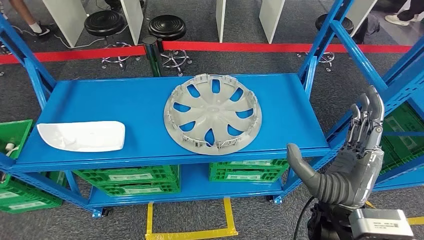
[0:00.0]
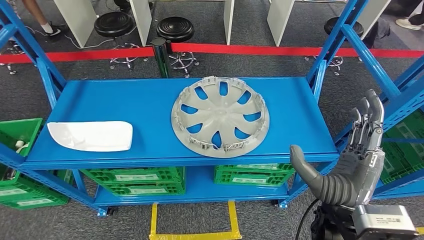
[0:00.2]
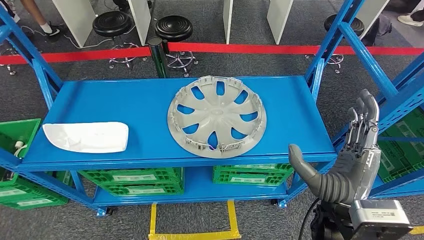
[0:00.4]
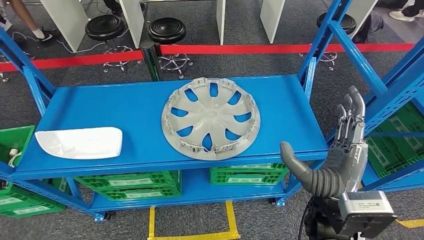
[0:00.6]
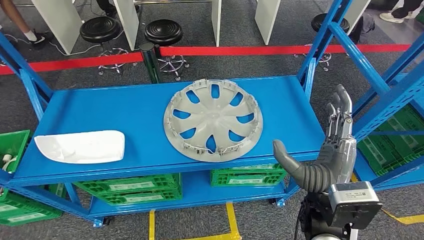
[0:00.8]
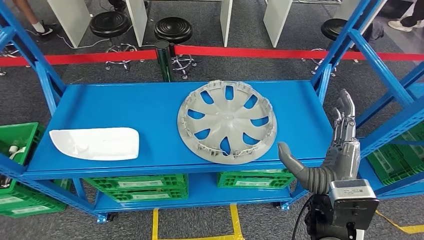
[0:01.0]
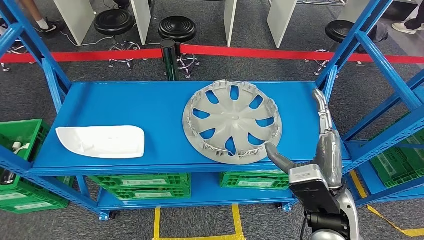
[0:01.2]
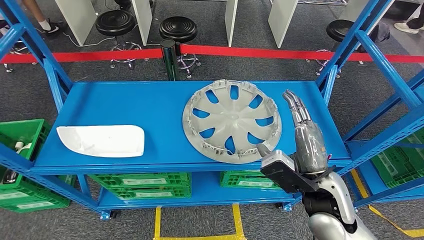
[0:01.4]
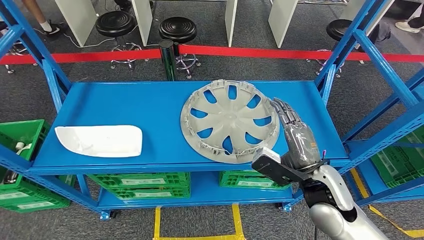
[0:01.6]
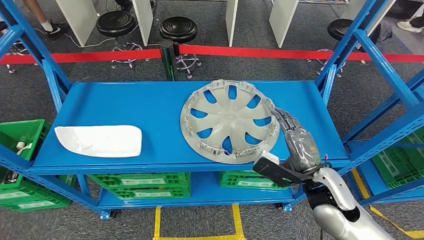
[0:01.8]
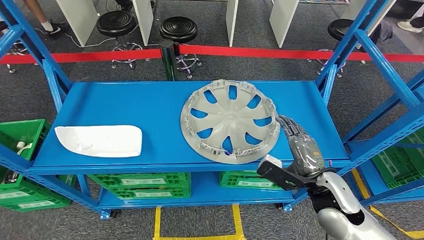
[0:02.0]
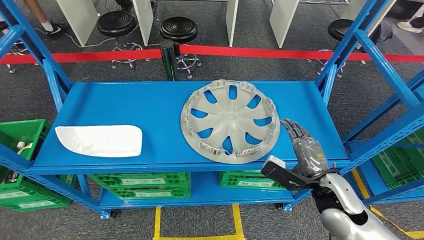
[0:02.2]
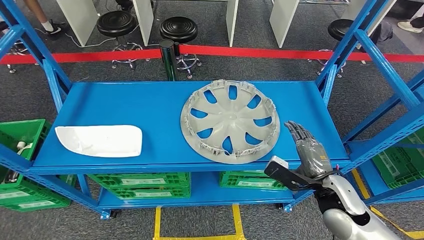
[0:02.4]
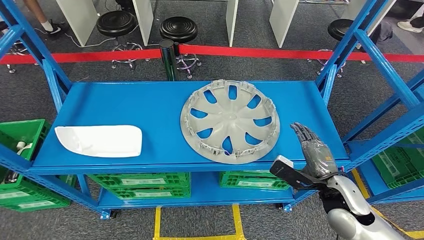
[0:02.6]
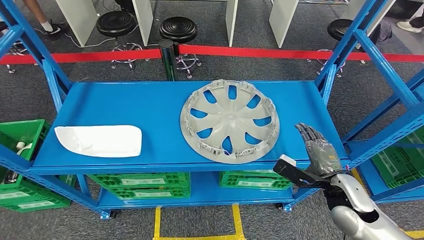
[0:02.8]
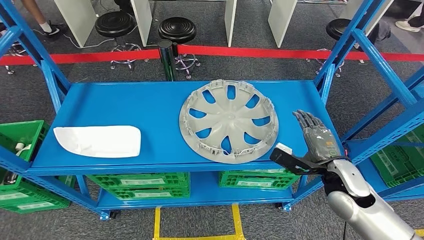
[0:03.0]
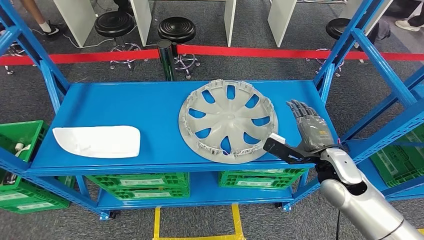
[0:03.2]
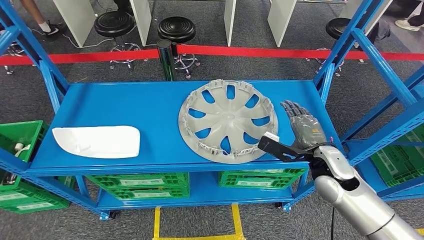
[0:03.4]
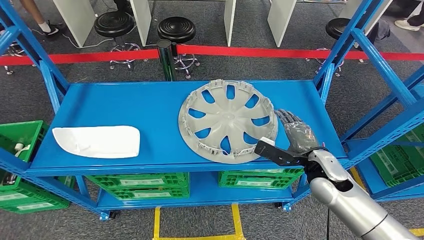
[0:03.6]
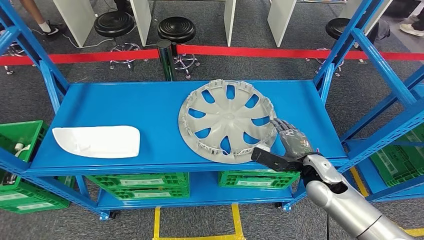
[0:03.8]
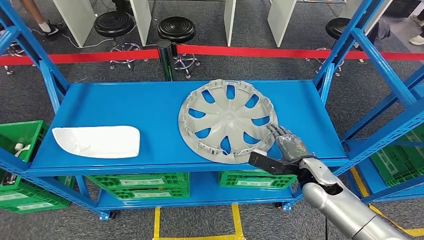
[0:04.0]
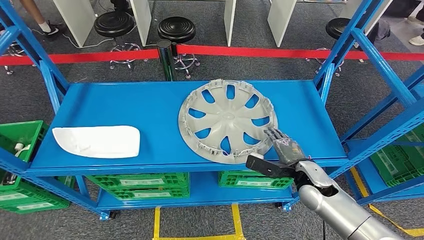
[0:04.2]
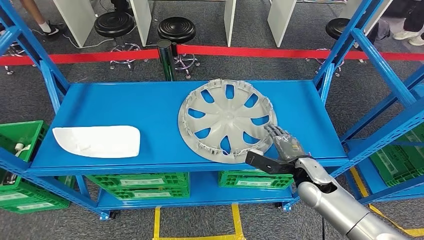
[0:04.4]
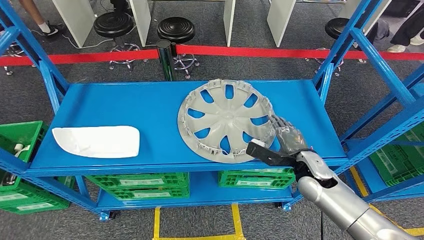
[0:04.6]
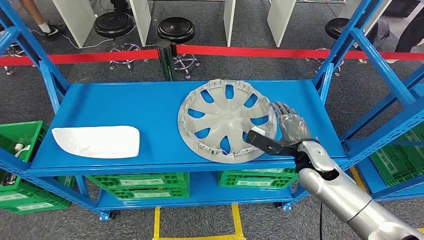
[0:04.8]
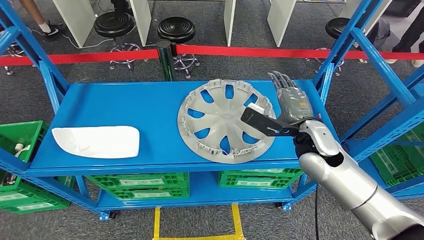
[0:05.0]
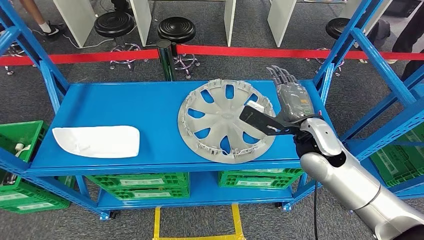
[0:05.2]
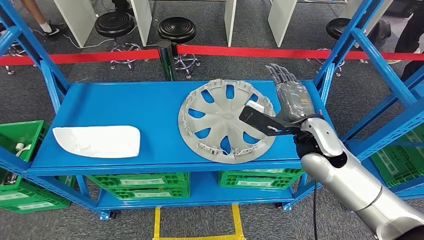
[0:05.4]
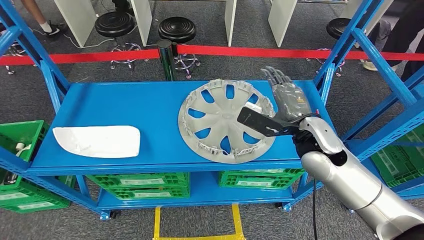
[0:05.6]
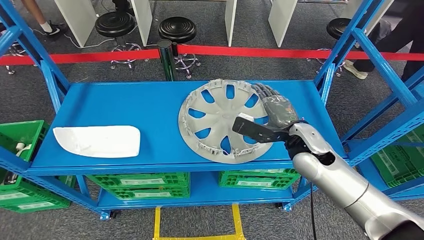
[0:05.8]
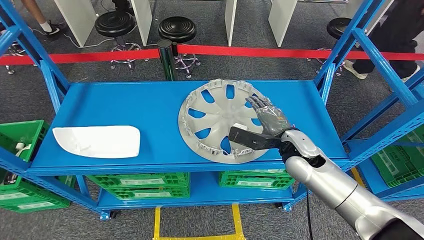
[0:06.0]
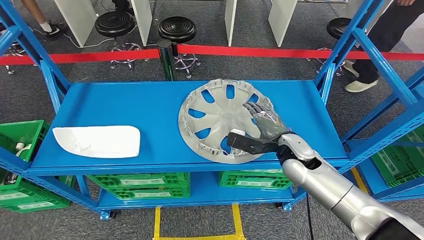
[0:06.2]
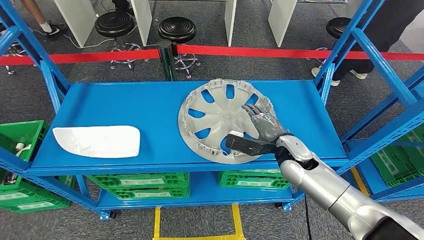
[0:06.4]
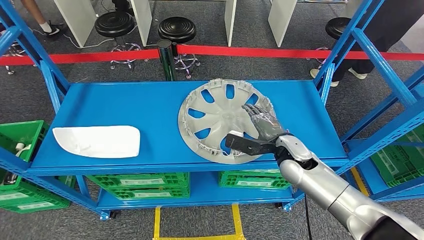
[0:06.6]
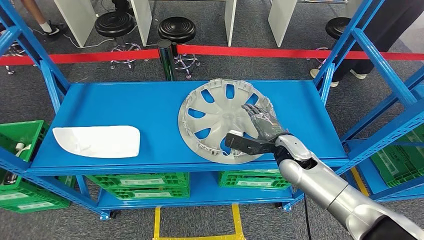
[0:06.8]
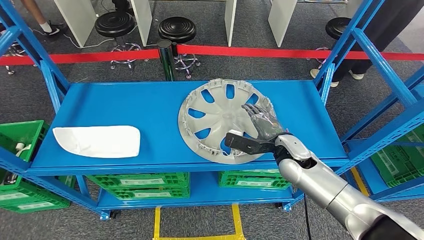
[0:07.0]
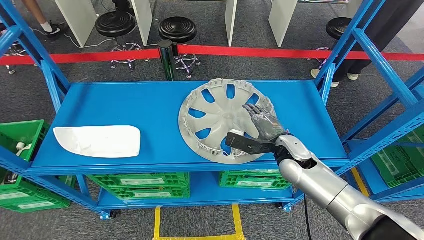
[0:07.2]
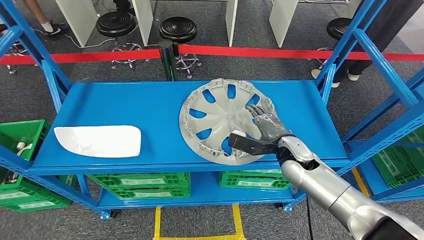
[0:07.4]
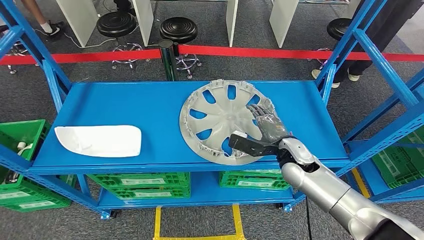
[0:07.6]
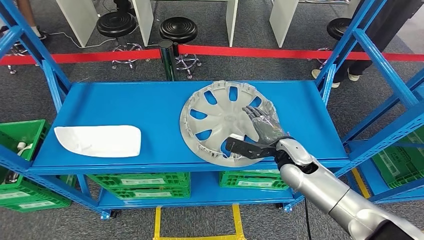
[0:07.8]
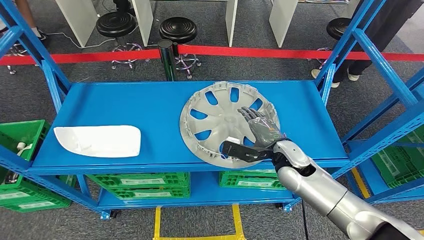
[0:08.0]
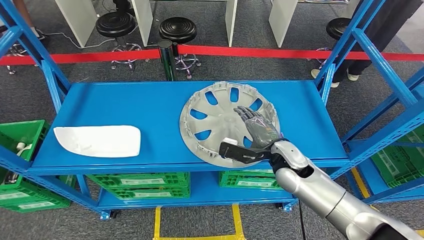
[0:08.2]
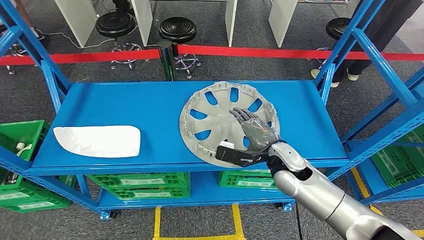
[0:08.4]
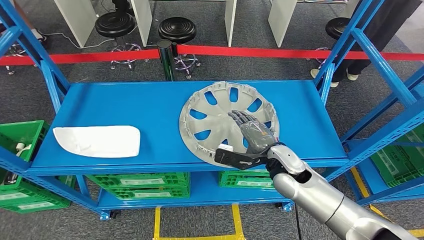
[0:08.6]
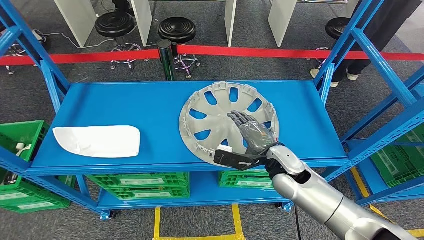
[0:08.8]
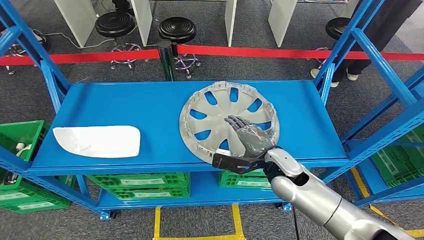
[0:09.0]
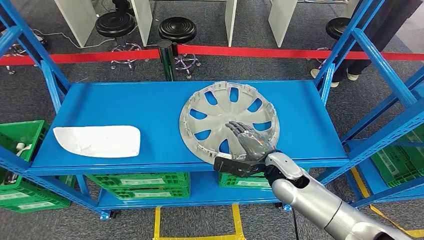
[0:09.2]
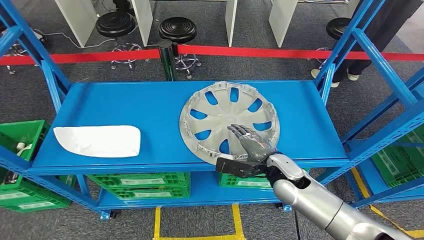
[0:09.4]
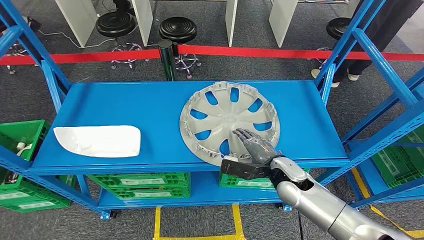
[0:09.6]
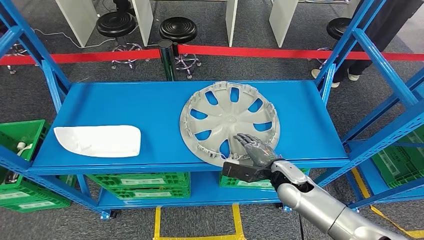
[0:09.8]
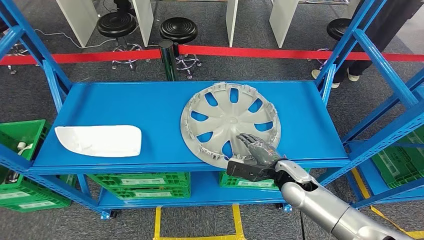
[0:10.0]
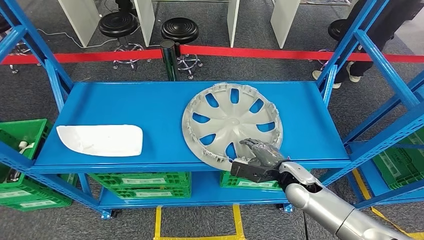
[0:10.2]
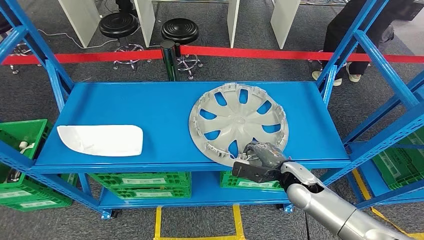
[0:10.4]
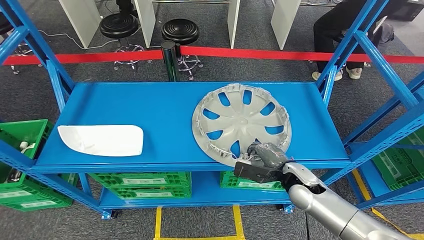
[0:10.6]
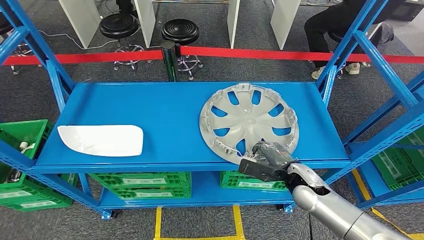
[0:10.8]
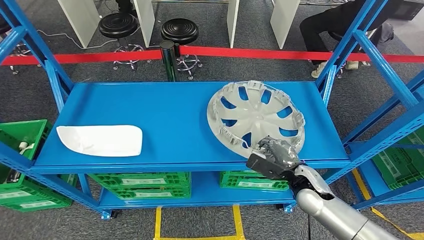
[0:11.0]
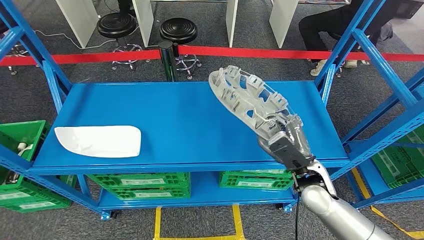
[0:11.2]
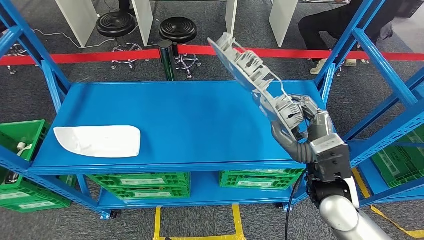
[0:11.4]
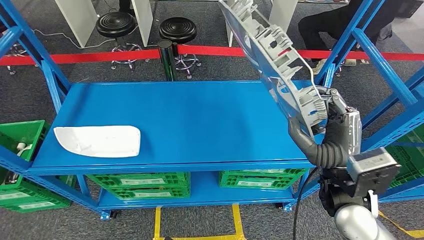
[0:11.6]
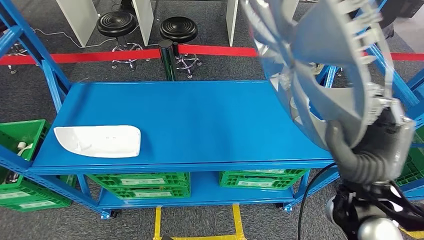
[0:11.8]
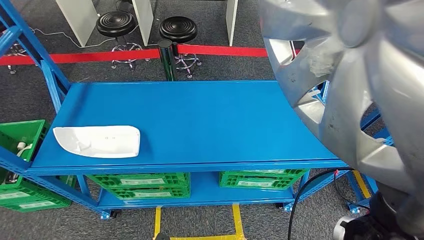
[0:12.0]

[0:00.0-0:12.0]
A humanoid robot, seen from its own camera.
Step, 0:00.0 to 0:11.4: Pick up the small component from the shelf.
0:01.6 to 0:03.0: The right hand travels to the right by roughly 10 cm.
0:03.0 to 0:04.4: The right hand travels downward by some 5 cm.
0:04.4 to 0:06.0: The right hand travels upward by some 10 cm.
0:06.0 to 0:07.6: The hands stay close to where they were, moving slightly.
0:07.6 to 0:09.0: The right hand changes place by approximately 5 cm.

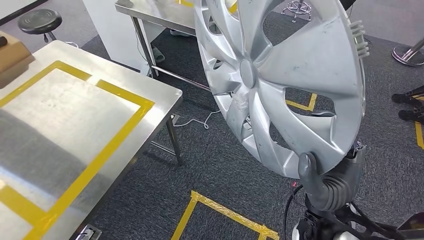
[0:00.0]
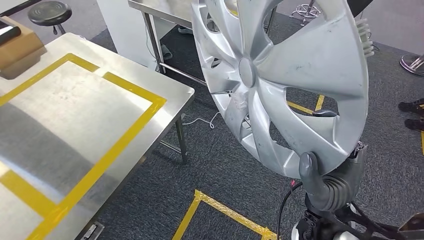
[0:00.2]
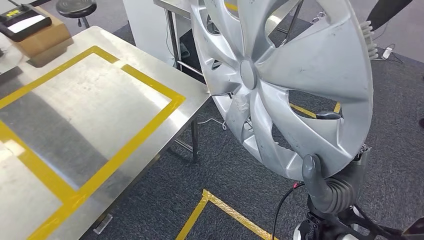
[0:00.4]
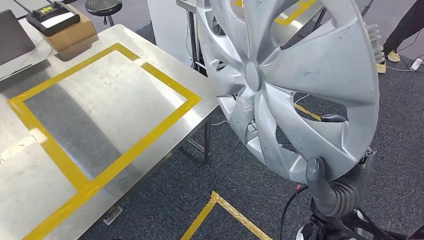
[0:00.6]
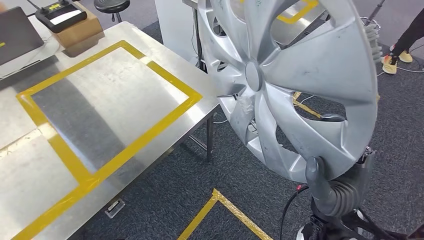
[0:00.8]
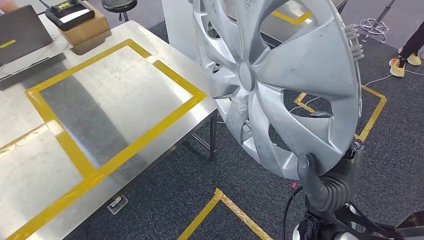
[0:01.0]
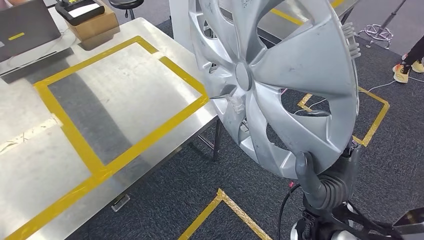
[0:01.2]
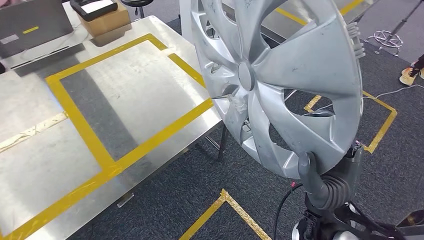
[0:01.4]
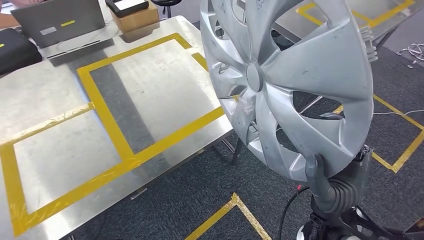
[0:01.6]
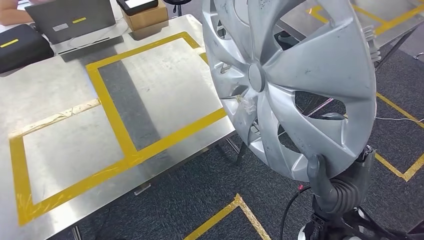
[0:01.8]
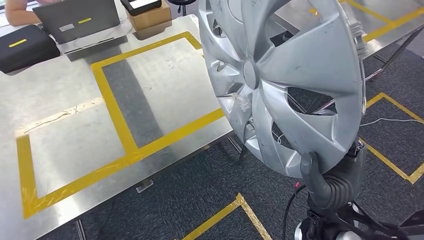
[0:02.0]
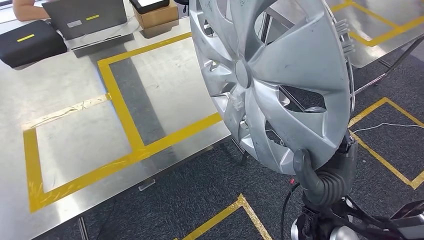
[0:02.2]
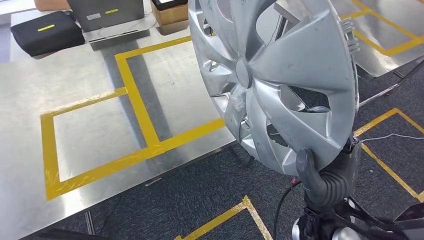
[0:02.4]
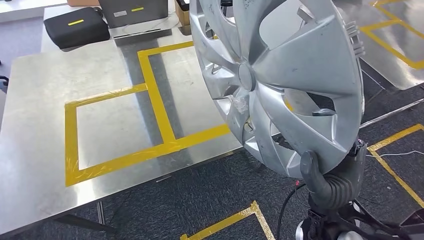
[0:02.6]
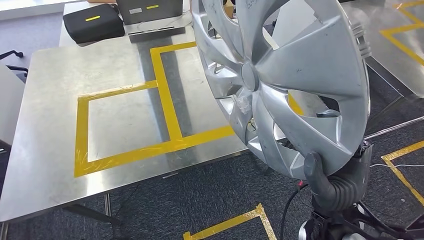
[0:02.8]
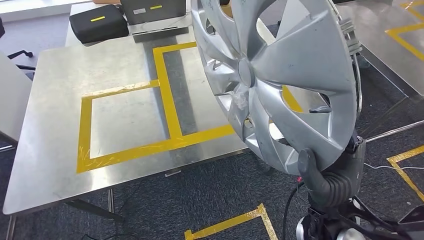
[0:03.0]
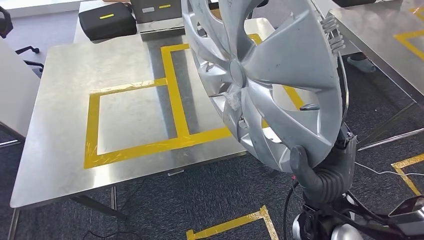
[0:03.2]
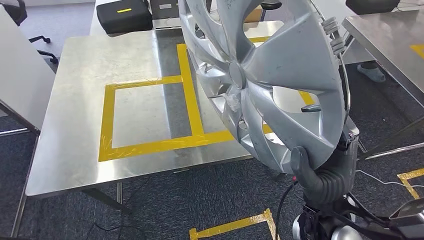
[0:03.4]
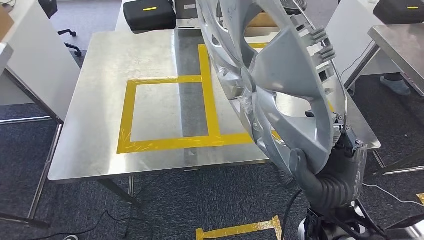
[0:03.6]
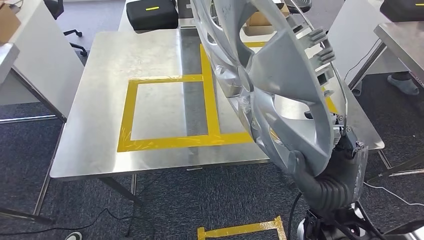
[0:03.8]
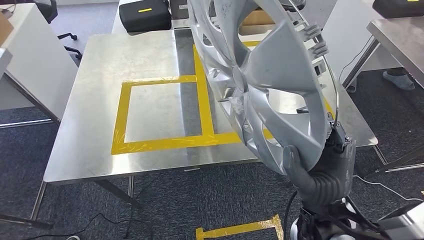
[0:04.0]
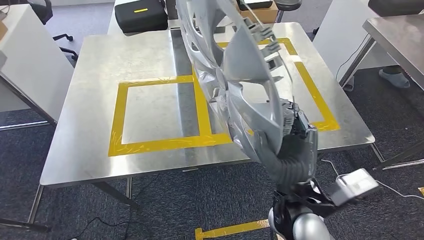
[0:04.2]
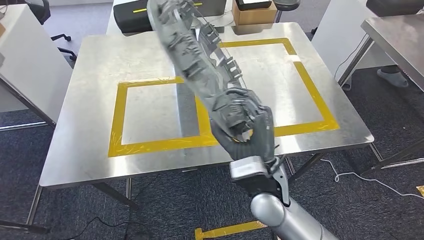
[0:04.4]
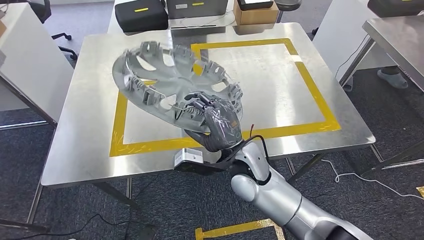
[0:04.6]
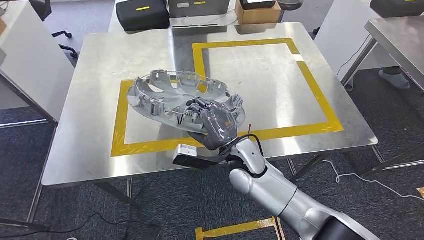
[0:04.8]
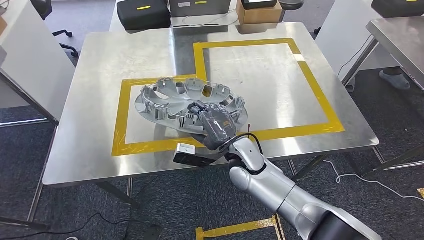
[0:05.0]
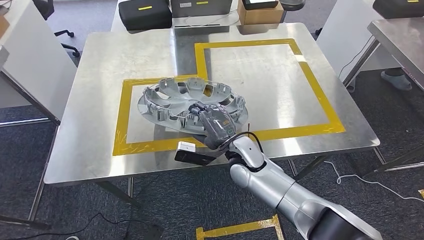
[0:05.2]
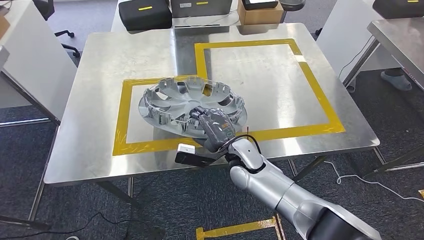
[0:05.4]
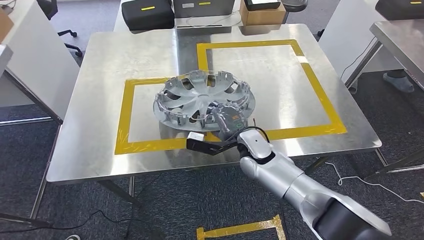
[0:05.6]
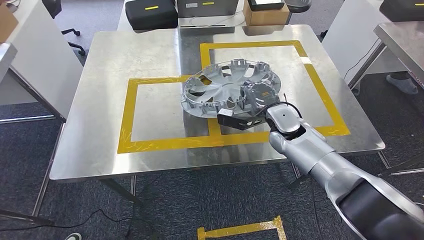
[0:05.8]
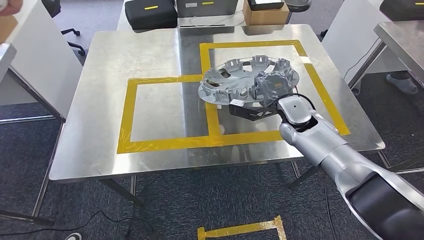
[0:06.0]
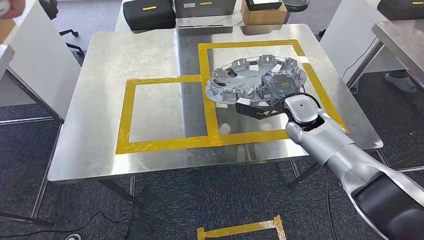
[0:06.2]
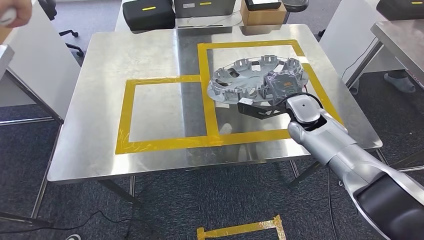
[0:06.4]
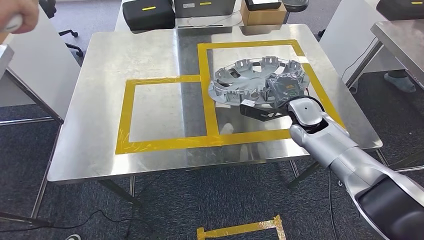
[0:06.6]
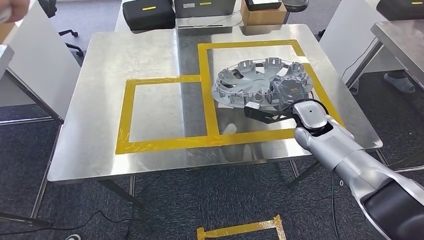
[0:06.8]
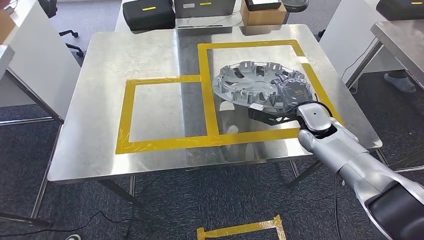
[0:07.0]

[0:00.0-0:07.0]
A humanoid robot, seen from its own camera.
Step, 0:00.0 to 0:03.8: Move the small component to the workbench.
